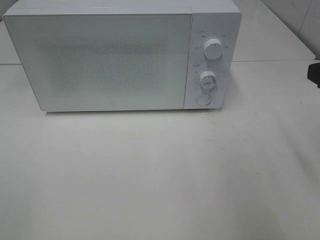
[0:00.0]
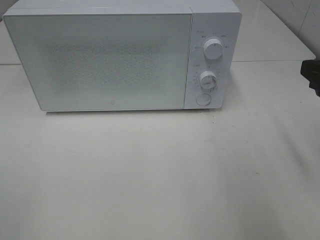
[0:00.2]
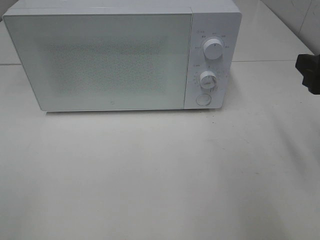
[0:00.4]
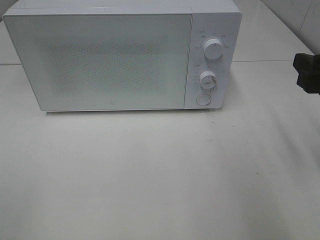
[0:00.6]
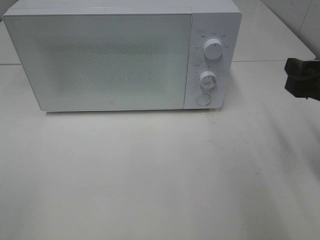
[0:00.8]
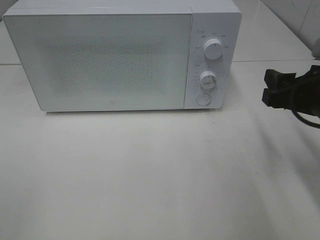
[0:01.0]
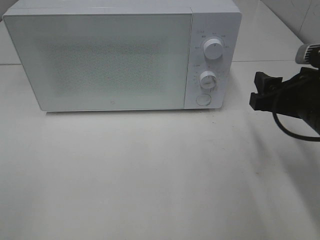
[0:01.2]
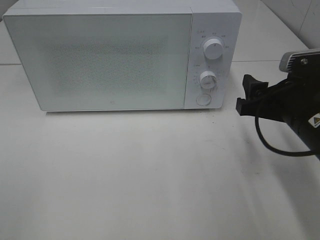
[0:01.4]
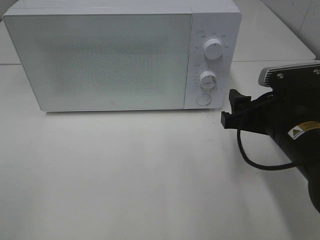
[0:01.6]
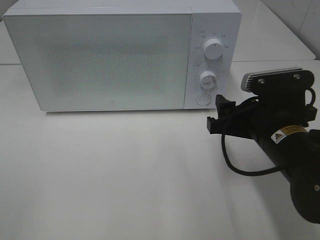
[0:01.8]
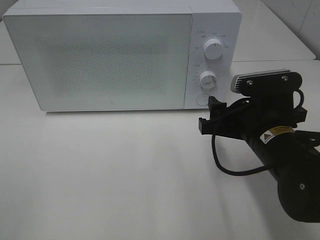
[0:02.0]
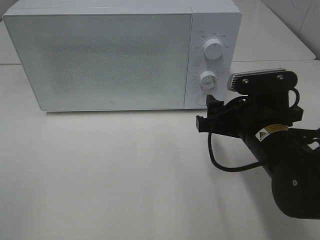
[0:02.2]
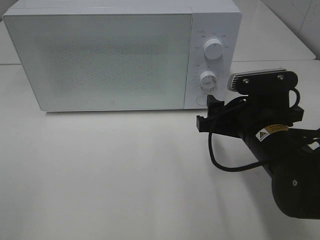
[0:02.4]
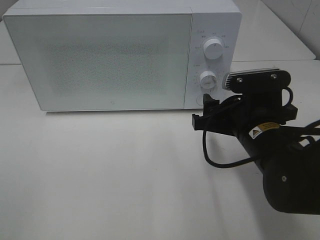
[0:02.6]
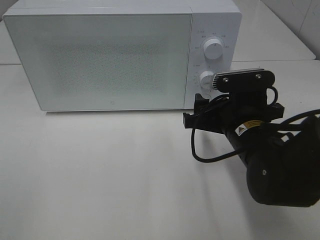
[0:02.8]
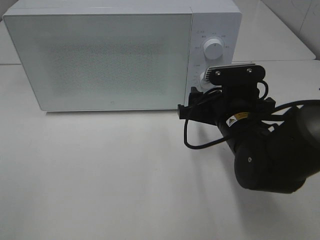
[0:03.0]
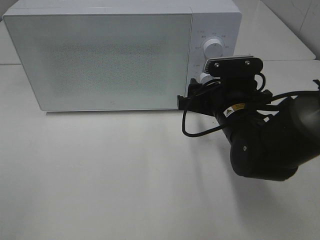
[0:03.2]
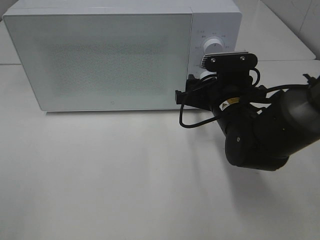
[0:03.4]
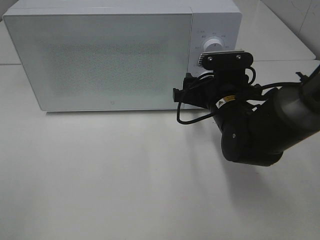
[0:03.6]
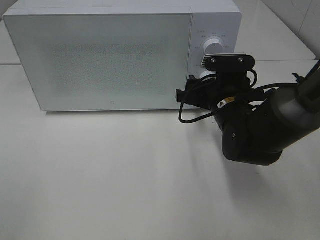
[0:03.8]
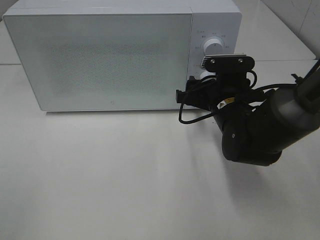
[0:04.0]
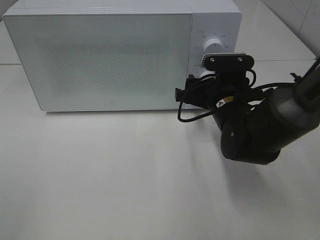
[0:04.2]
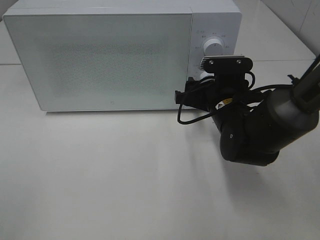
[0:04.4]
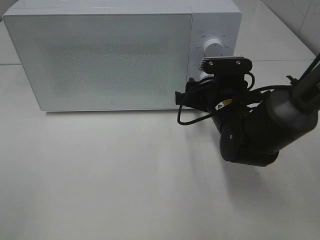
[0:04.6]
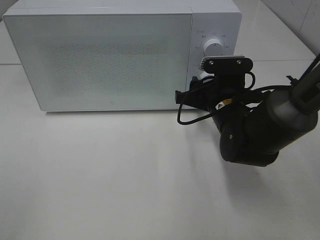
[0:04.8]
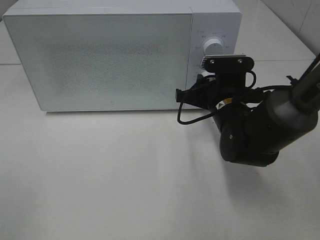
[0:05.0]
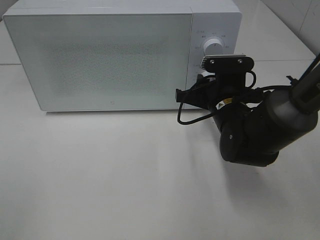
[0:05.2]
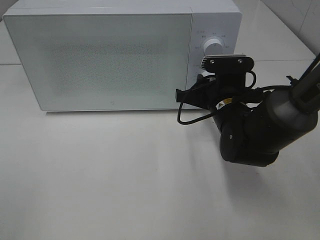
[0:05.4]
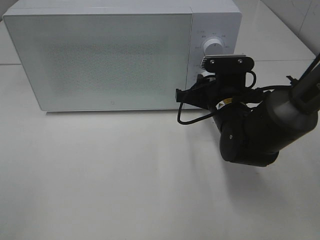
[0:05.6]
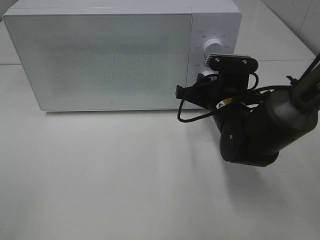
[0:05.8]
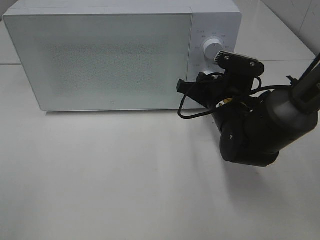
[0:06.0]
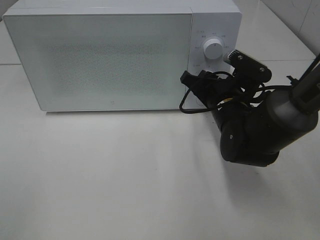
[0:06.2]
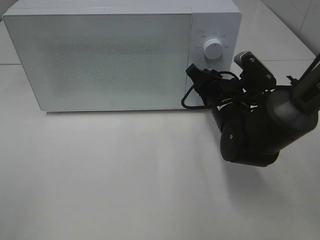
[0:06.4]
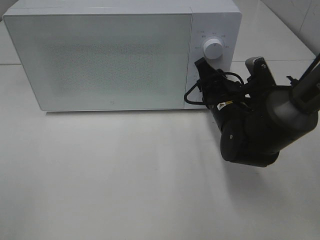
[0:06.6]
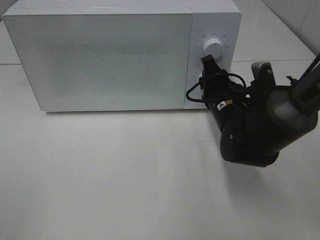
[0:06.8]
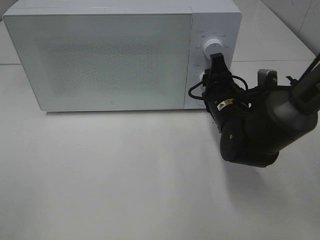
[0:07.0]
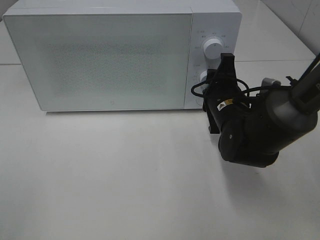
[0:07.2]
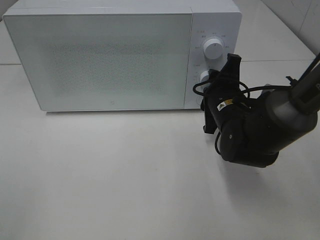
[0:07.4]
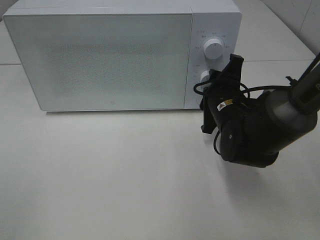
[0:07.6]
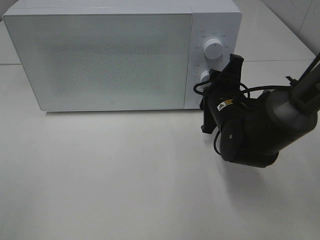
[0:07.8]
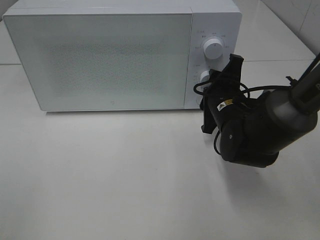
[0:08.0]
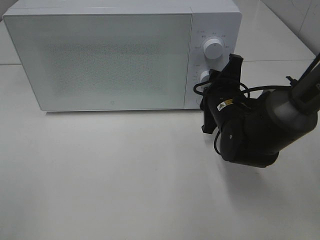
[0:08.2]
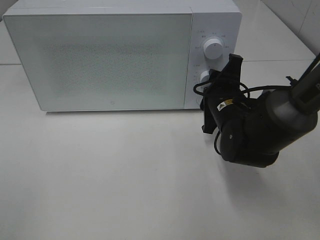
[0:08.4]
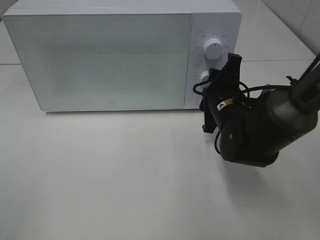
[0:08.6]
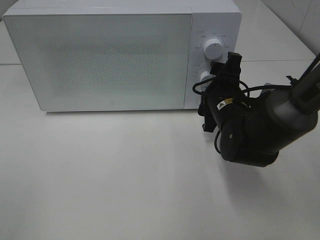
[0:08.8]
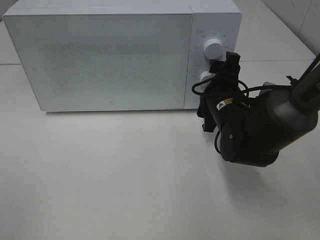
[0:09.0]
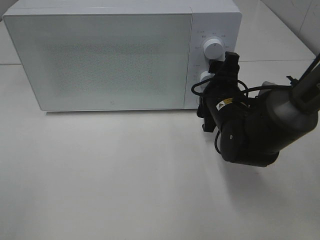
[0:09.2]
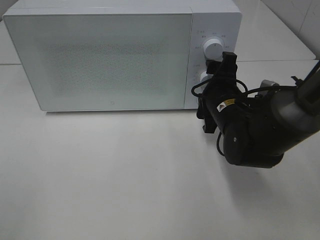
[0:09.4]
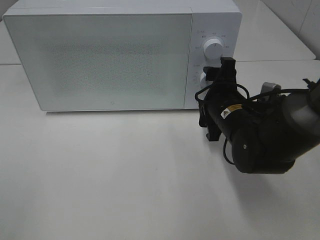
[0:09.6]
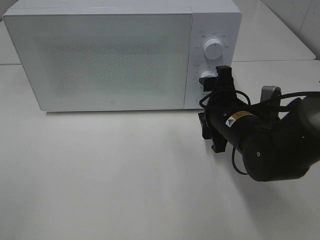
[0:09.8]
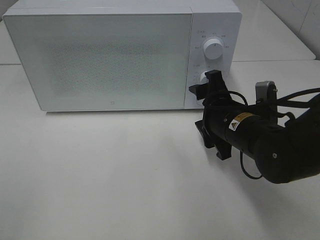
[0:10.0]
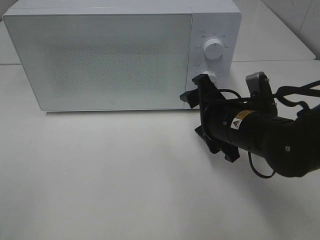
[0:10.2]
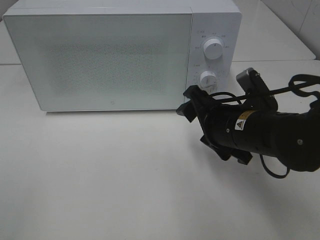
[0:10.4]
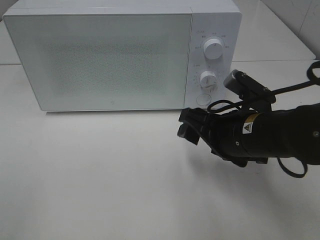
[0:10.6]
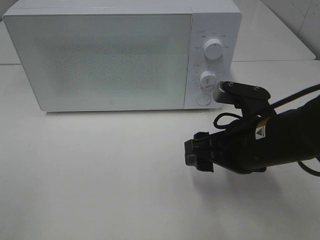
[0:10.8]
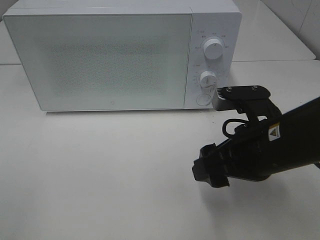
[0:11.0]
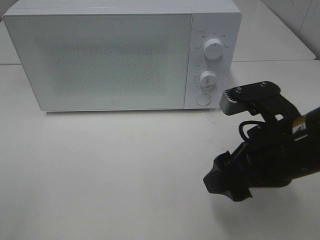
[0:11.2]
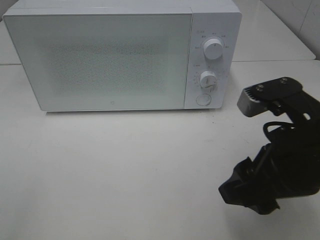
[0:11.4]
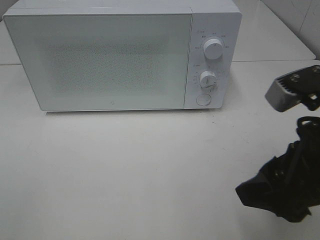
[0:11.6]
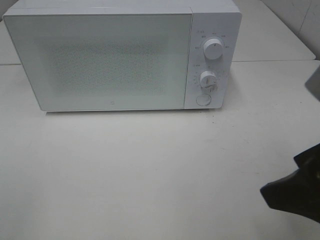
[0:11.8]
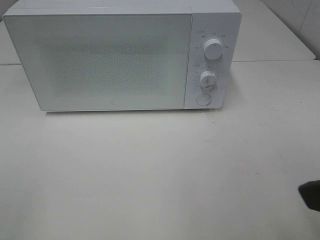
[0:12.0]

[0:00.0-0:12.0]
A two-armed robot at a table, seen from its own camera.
Task of the whole recording: Heat Sandwich.
Step, 0:00.0 to 0:09.6: Right hand: twist timer button.
0:00.0 to 0:01.6: The right gripper shifts about 15 cm downward and to the left.
0:01.6 to 0:03.0: The right gripper heads to the left, covering some 5 cm.
0:03.0 to 0:04.4: The right gripper goes approximately 5 cm forward.
0:04.4 to 0:06.0: The right gripper closes its fingers.
0:07.6 to 0:09.0: The right gripper opens up.
0:09.0 to 0:10.4: The right gripper goes roughly 5 cm backward.
0:10.4 to 0:12.0: The right gripper heads backward, upward and to the right, covering about 25 cm.

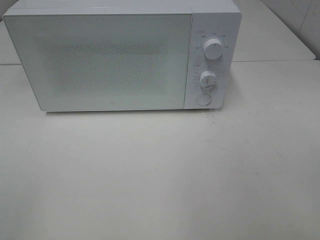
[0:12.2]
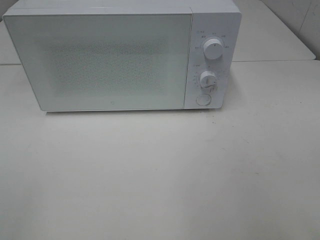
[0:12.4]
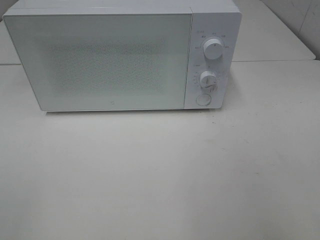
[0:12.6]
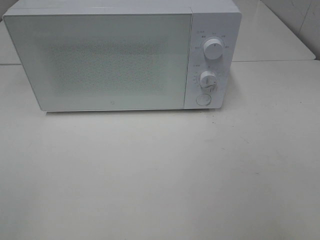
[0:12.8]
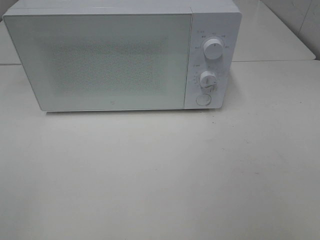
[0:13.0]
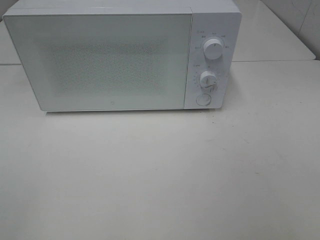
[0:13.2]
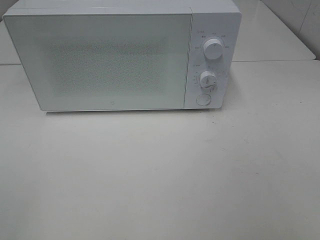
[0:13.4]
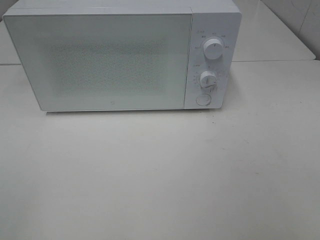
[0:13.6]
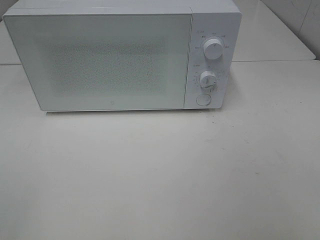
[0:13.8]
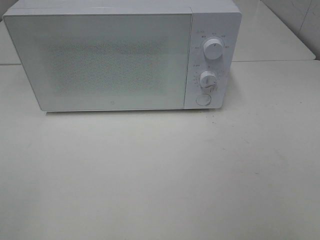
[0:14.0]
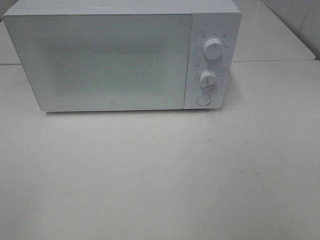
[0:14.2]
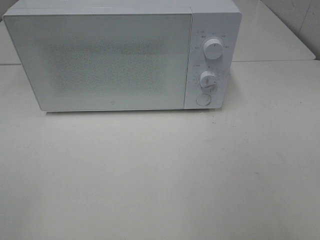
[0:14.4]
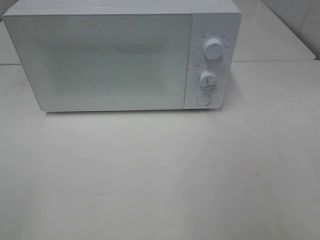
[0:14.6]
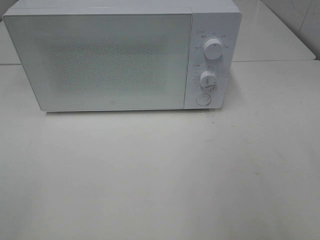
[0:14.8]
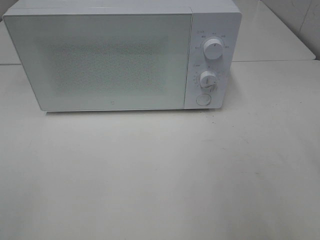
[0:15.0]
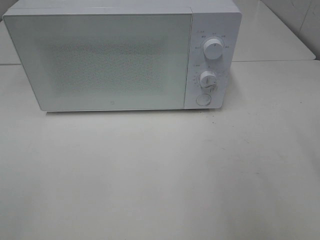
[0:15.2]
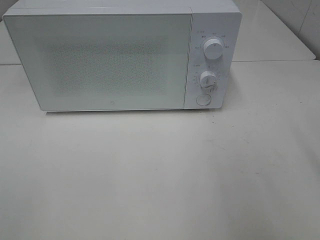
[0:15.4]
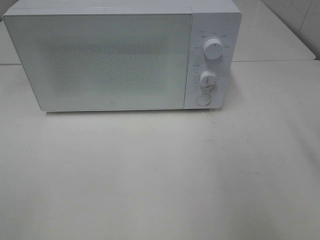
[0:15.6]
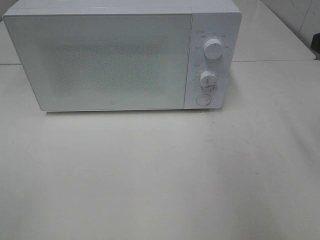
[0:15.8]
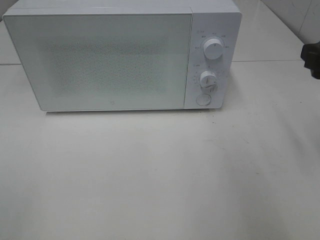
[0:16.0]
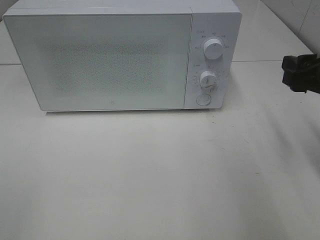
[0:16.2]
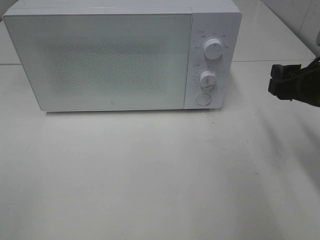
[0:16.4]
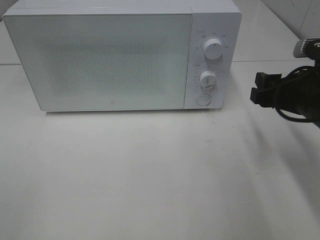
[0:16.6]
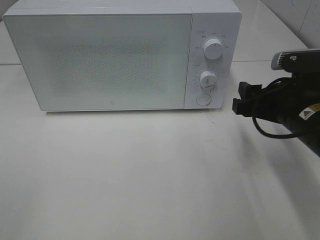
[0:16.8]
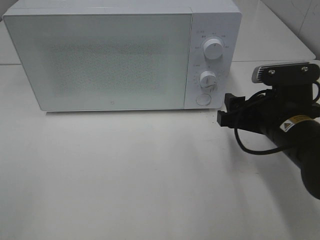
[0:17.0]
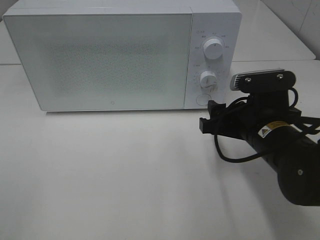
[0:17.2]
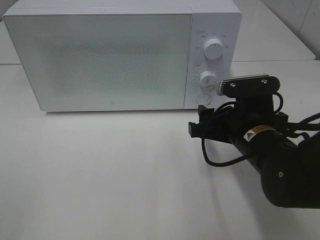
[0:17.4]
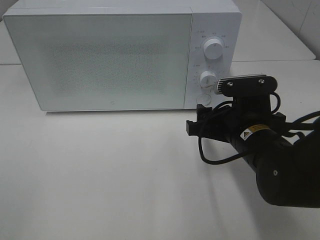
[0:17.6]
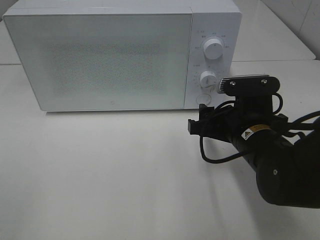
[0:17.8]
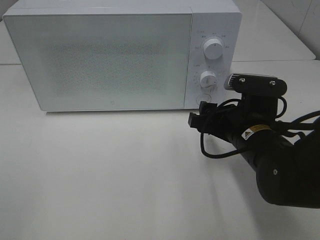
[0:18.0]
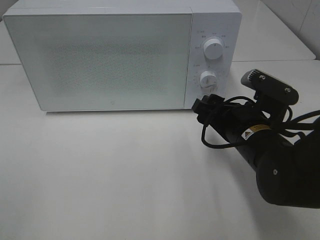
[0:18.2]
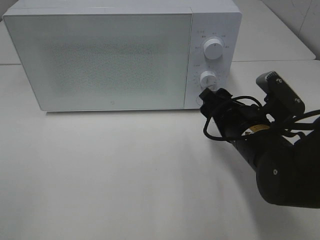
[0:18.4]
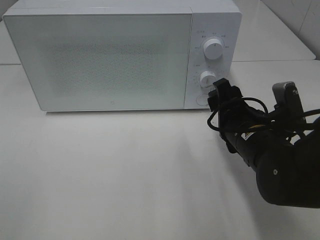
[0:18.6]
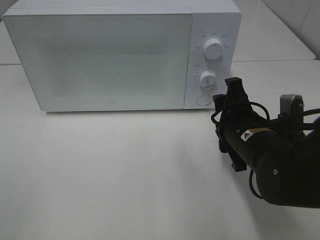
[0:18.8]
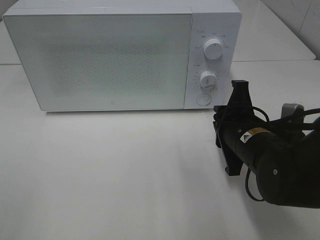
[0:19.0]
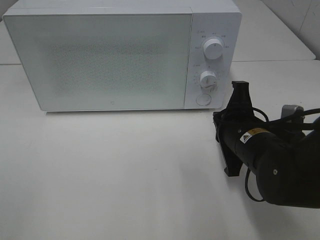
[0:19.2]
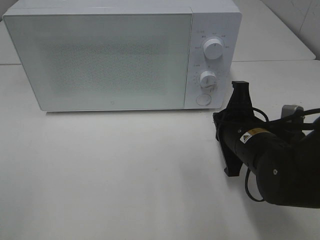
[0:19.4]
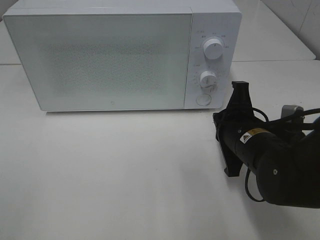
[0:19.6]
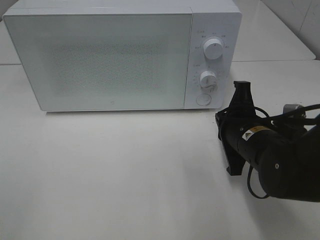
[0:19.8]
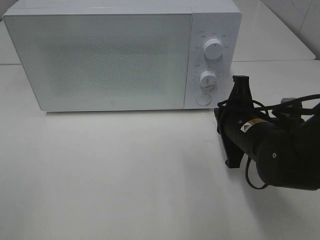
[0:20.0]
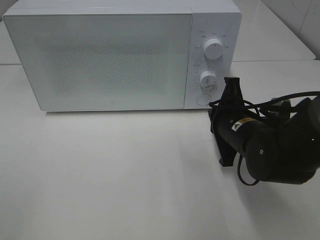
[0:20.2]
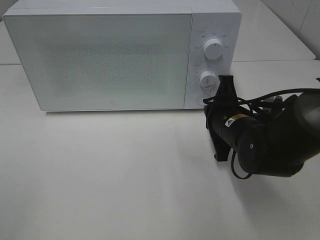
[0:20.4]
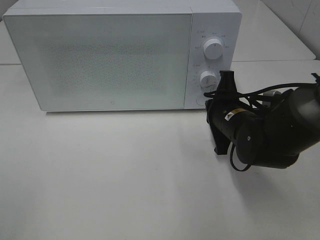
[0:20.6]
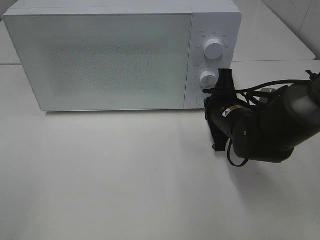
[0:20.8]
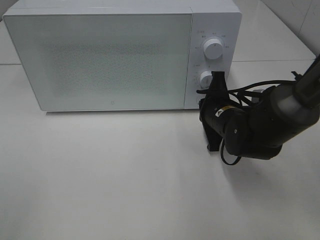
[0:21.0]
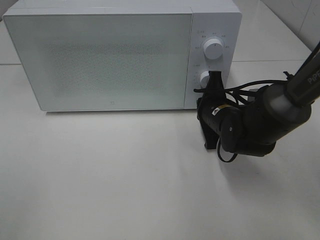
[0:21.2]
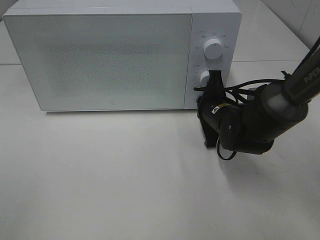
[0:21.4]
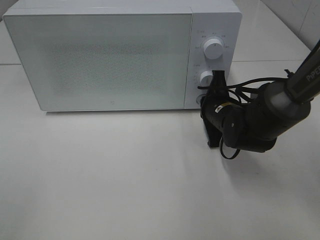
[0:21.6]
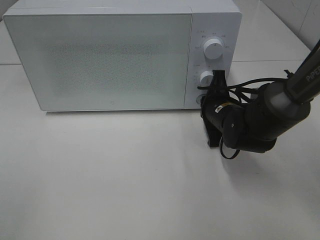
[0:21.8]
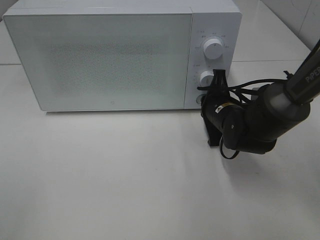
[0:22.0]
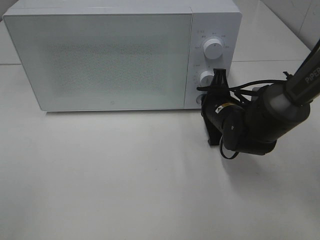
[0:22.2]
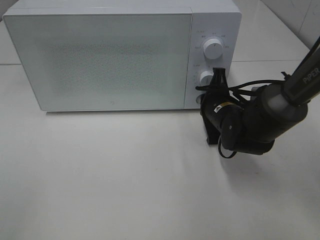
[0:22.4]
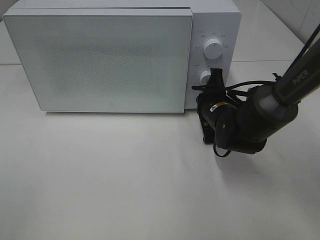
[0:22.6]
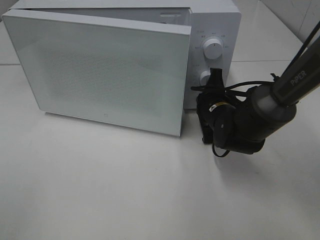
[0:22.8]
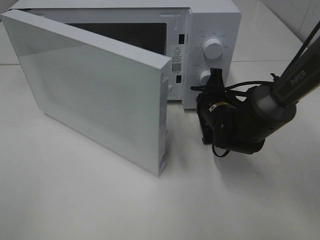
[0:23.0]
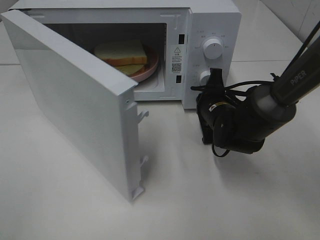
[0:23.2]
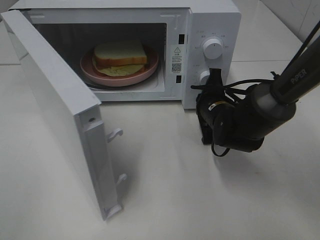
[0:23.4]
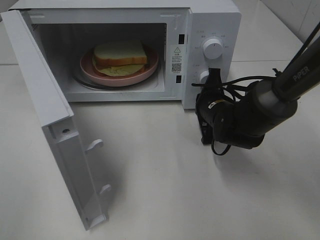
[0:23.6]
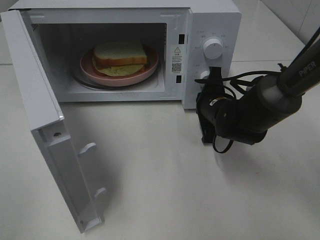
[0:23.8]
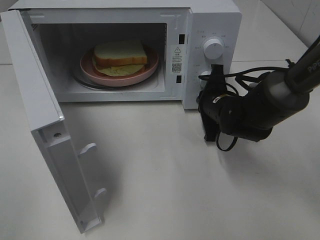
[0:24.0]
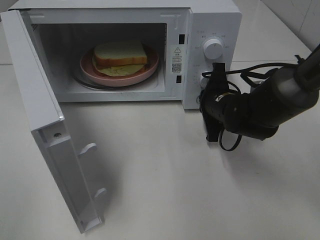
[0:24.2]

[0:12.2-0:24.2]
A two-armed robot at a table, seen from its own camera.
Task of the whole recording: Heat Sandwich.
Step, 0:12.2 to 0:24.2: Right hand: press the switch.
0:15.2 to 0:16.6: The right gripper goes roughly 15 cm downward and forward.
0:16.6 to 0:18.2: The right gripper shifts roughly 10 cm to the left and downward.
0:18.2 to 0:19.8: The right gripper closes up.
0:19.8 to 0:21.2: The right gripper heads forward, covering some 10 cm.
0:21.2 to 0:22.6: There are only small adjustments of the grippers.
